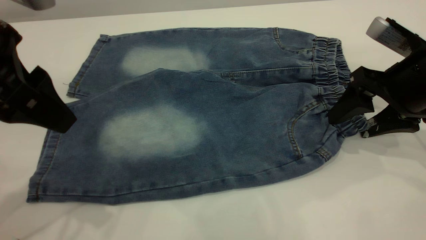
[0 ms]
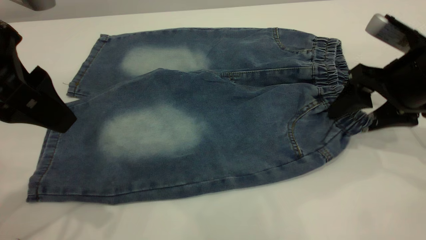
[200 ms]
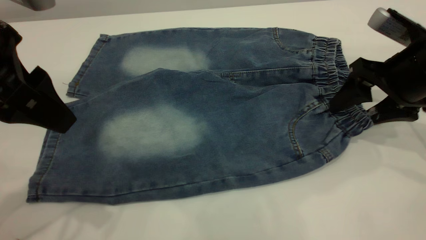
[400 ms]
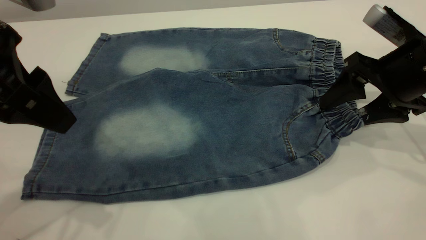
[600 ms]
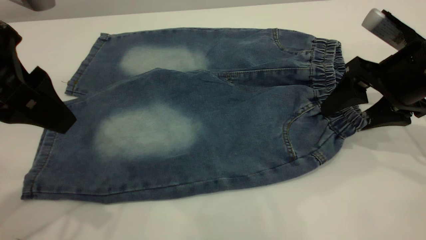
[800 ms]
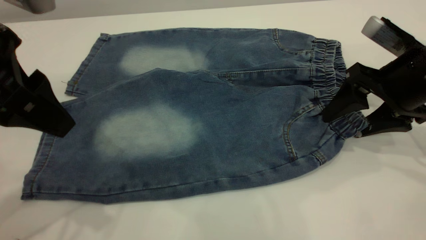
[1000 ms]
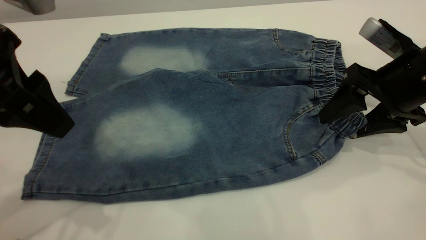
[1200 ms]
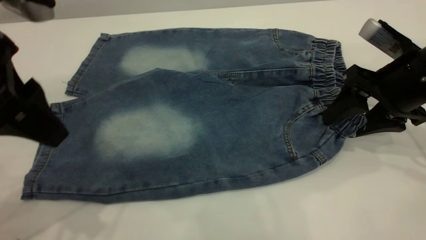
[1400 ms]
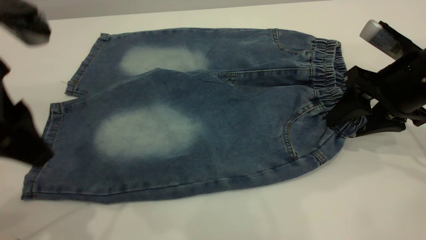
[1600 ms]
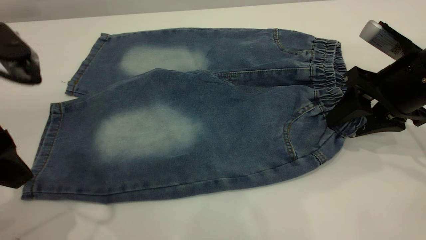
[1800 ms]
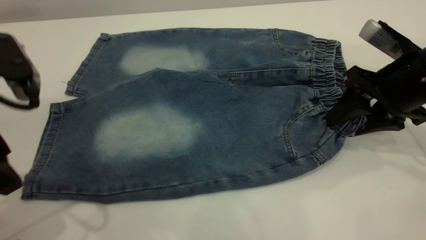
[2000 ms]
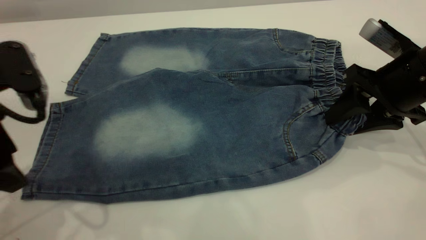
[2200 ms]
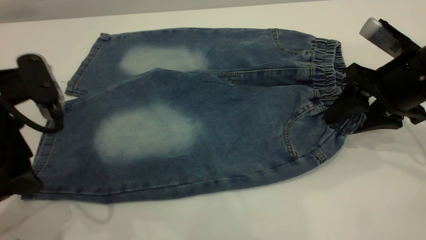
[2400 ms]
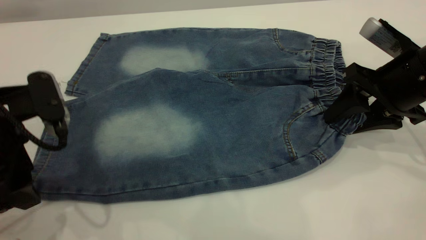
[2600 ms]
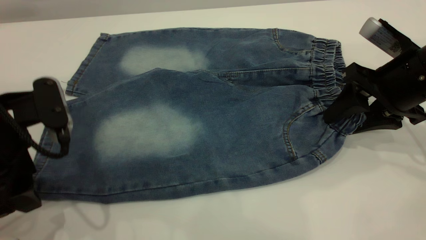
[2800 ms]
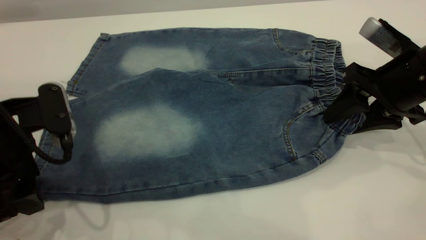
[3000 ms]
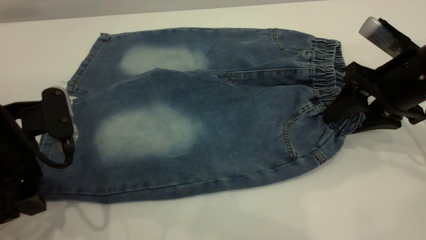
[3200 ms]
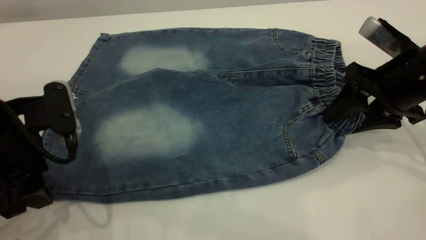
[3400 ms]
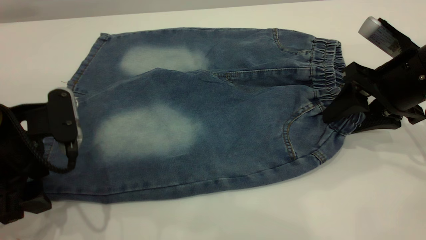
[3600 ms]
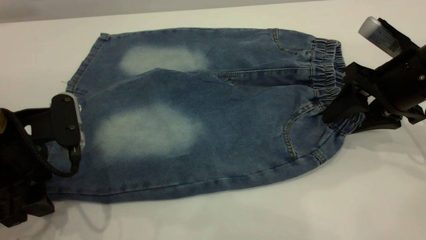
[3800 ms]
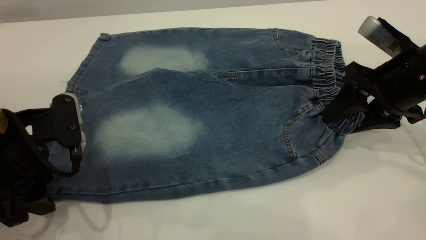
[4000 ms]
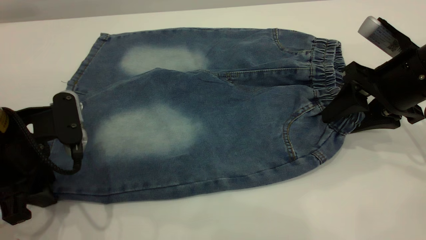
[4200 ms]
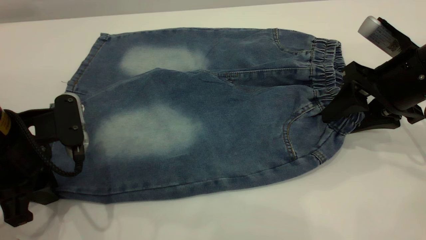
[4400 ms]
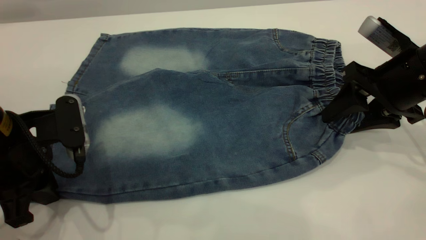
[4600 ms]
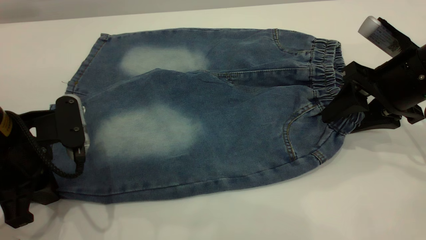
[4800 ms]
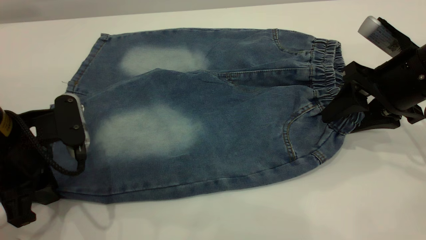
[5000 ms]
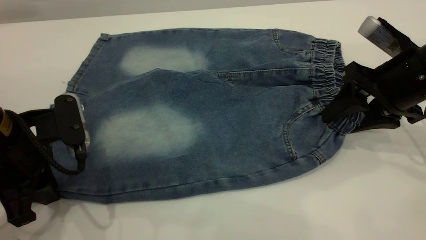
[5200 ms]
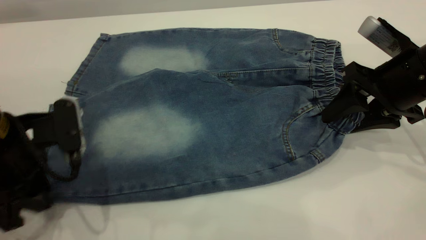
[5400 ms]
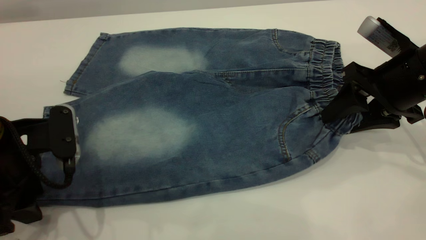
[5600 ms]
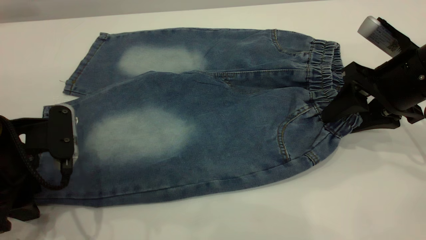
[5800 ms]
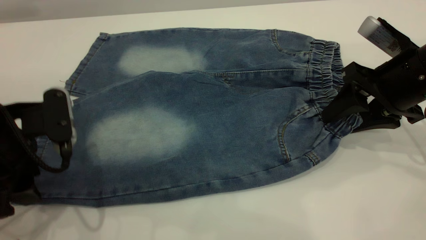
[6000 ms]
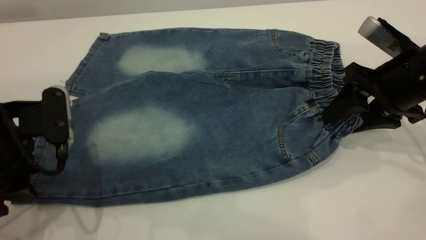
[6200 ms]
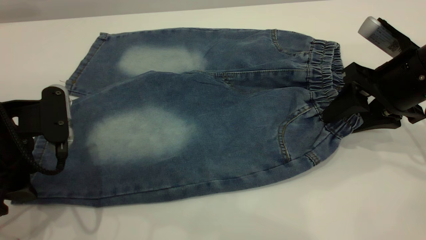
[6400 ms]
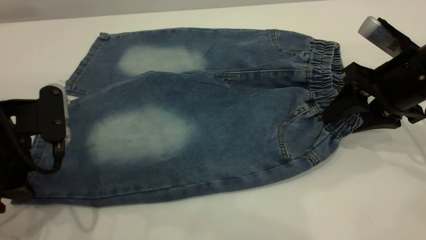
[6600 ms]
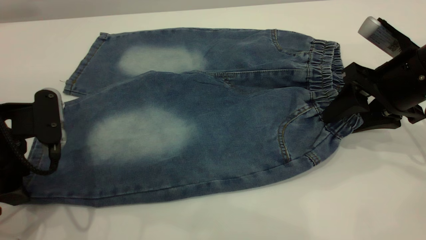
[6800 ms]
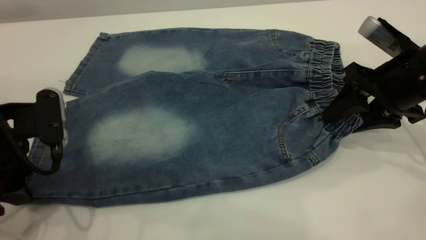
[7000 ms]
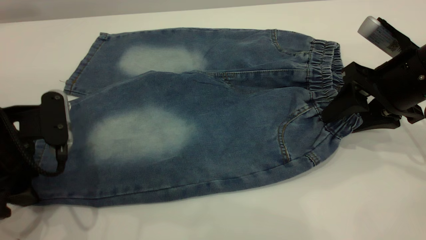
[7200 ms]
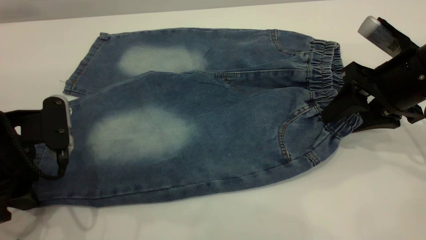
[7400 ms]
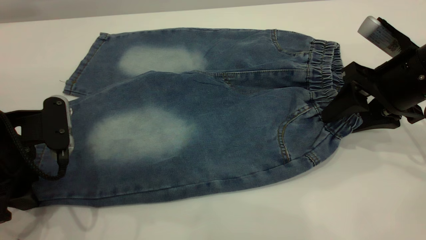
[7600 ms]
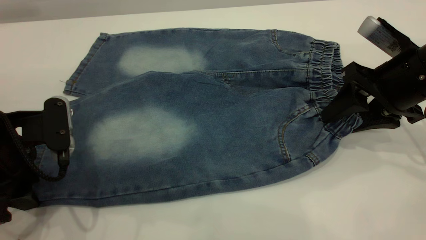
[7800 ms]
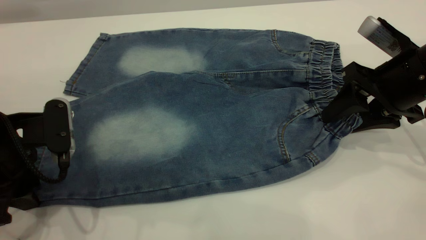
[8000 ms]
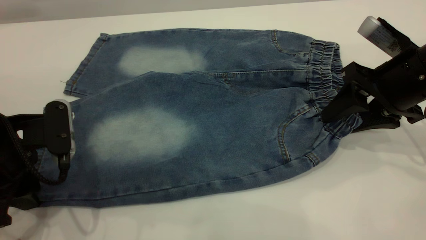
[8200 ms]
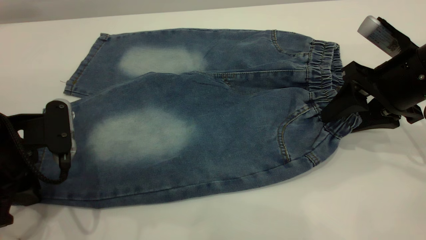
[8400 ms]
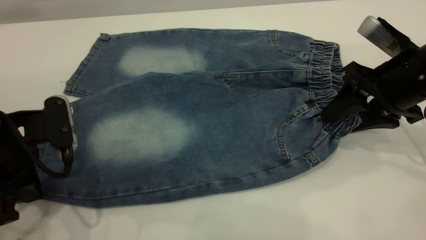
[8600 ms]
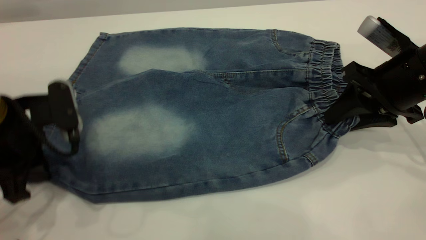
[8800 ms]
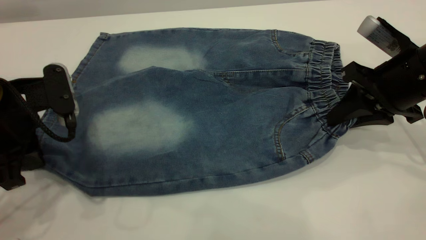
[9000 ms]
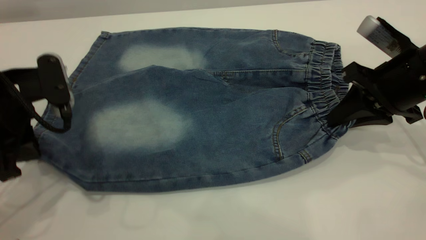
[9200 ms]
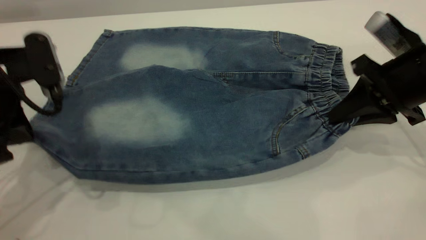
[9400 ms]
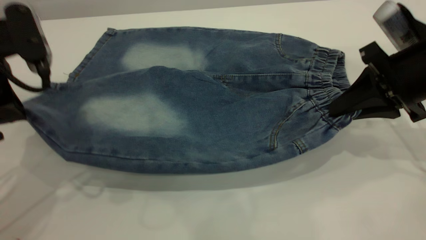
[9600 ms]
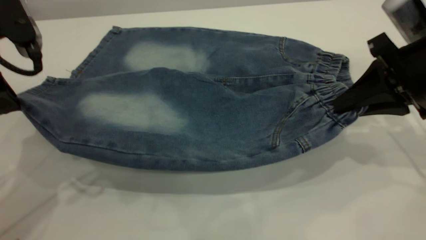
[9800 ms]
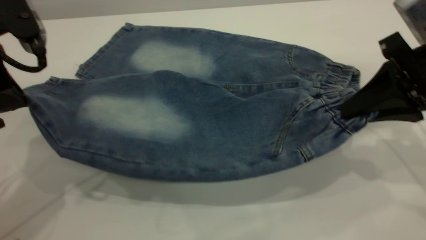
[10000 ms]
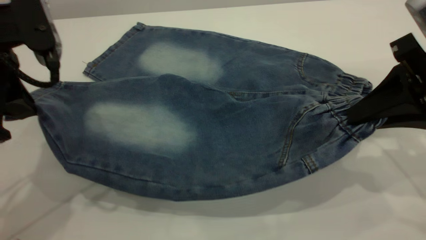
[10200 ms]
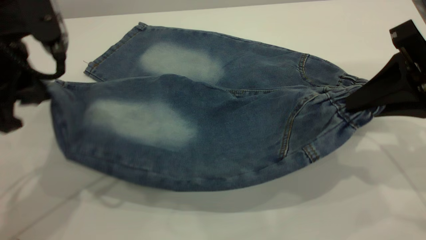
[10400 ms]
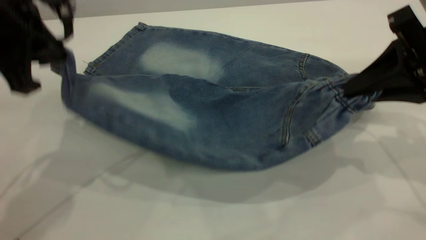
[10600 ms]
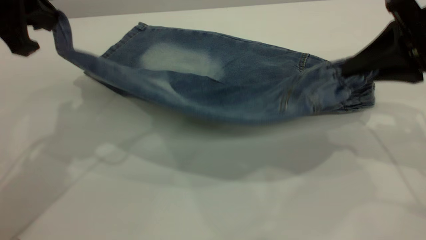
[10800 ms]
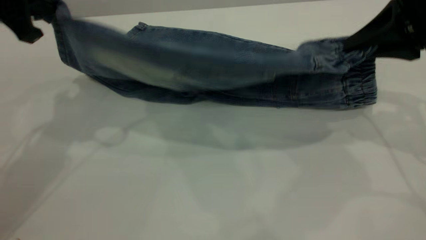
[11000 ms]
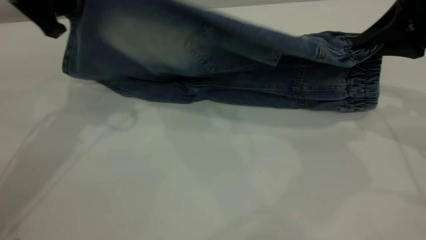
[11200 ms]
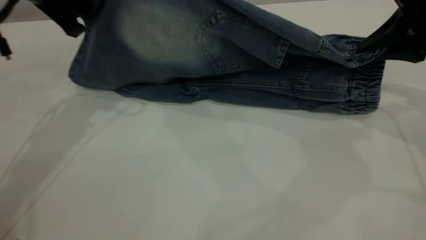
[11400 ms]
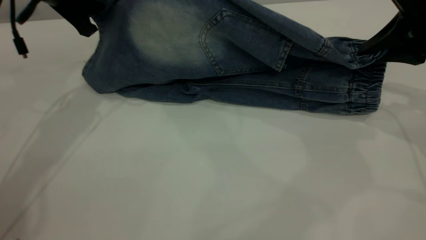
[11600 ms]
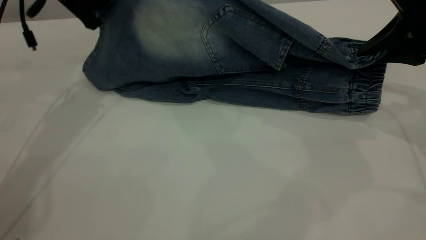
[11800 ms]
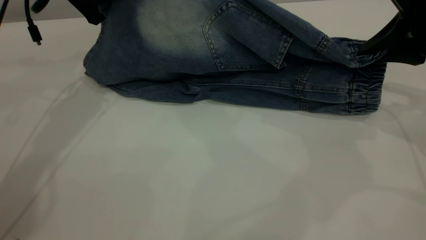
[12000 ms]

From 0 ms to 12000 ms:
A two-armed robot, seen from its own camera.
From 0 ms to 1600 ms: There are only small adjustments of the grippers.
From 1600 ms to 3000 ms: The left gripper shifts approximately 10 cm downward.
From 3000 ms to 4400 ms: The left gripper closes its fingers.
From 4400 ms to 6000 ms: The left gripper opens up.
From 6000 ms to 7600 ms: The grippers make only small movements.
From 7600 ms to 9000 ms: The right gripper closes its fingers. The left gripper closes its fingers.
From 9000 ms to 10400 ms: The left gripper moves upward, roughly 10 cm; the right gripper is displaced upward and backward by approximately 10 cm.
From 10400 ms to 12000 ms: The left gripper shifts approximately 20 cm forward. Meanwhile the right gripper travels forward by roughly 5 cm.

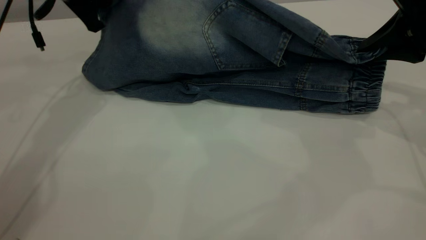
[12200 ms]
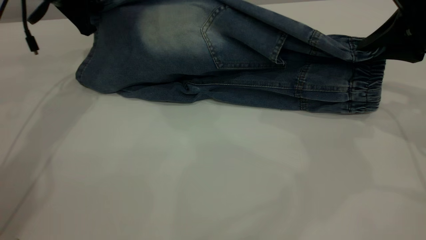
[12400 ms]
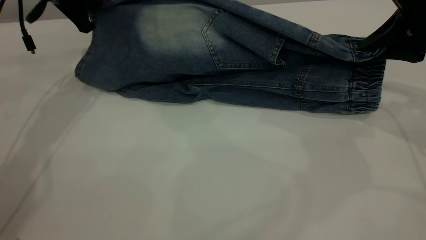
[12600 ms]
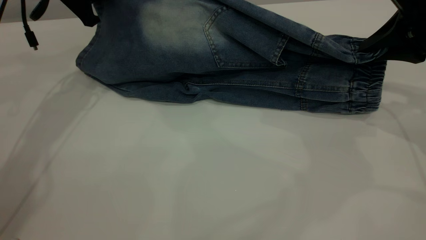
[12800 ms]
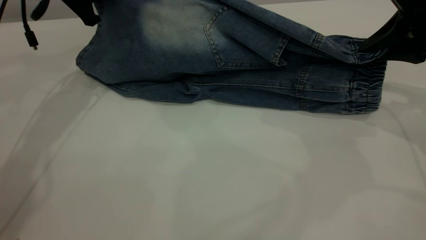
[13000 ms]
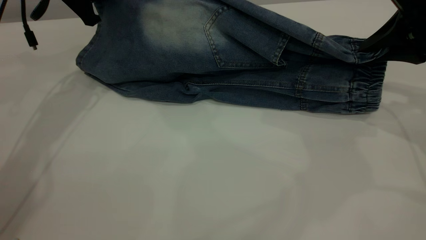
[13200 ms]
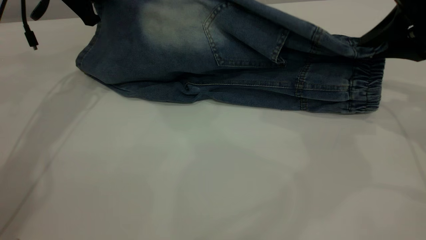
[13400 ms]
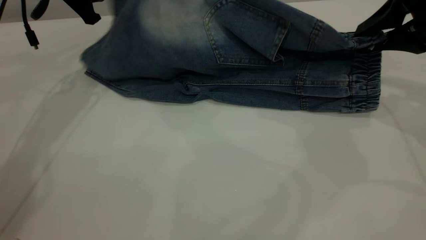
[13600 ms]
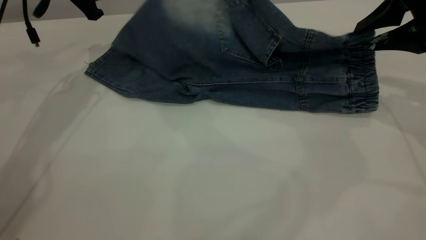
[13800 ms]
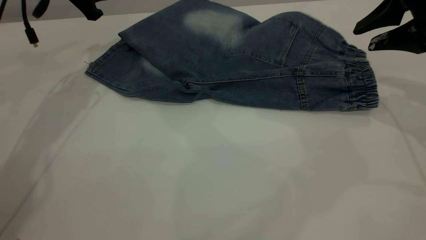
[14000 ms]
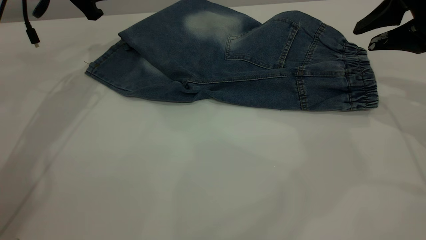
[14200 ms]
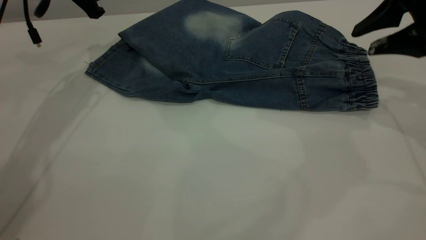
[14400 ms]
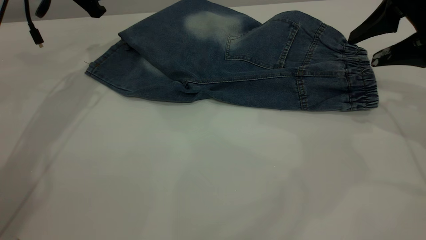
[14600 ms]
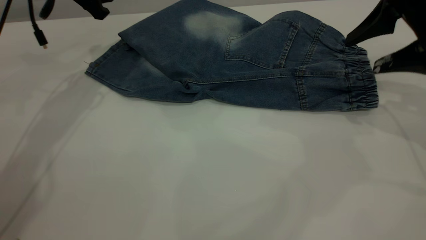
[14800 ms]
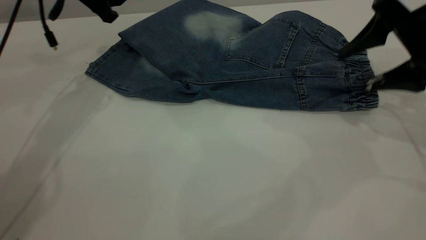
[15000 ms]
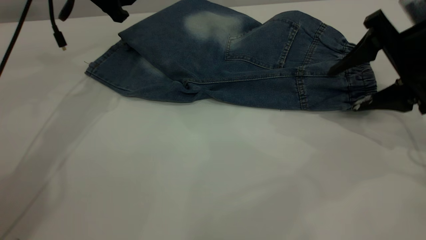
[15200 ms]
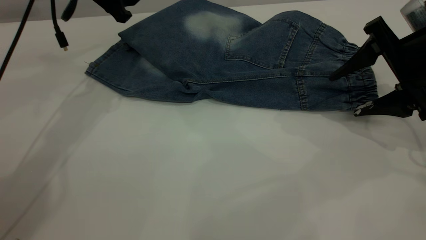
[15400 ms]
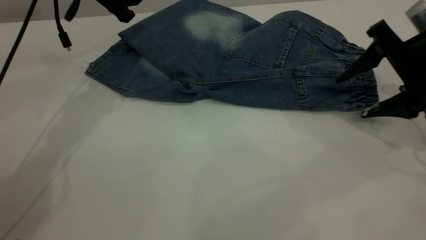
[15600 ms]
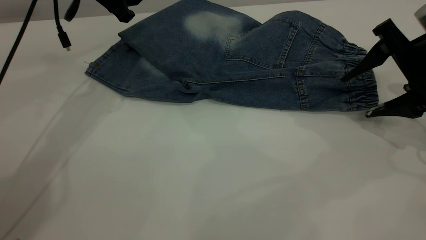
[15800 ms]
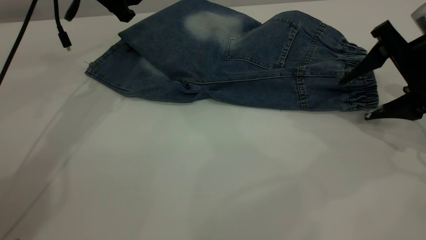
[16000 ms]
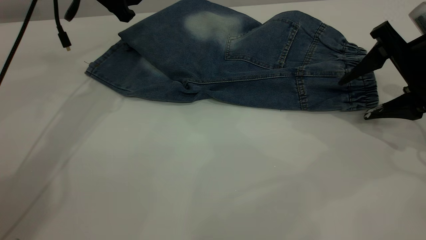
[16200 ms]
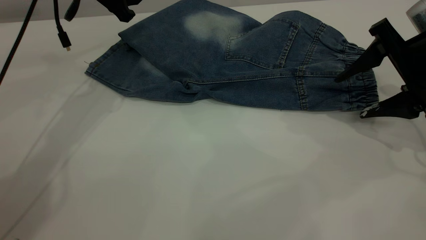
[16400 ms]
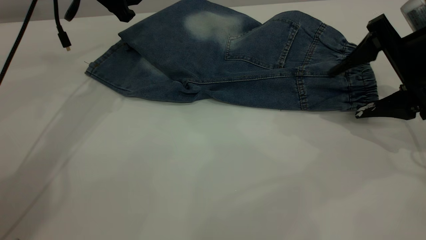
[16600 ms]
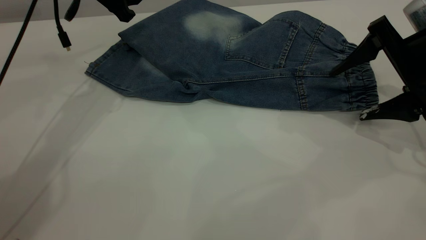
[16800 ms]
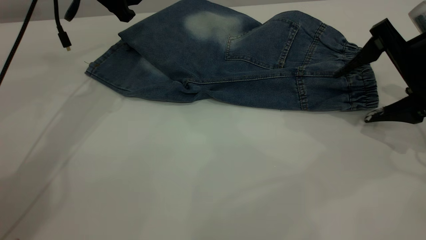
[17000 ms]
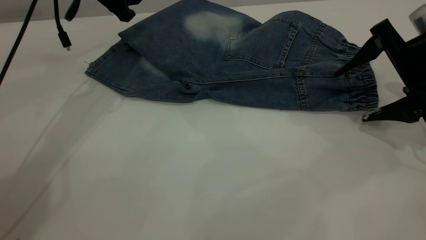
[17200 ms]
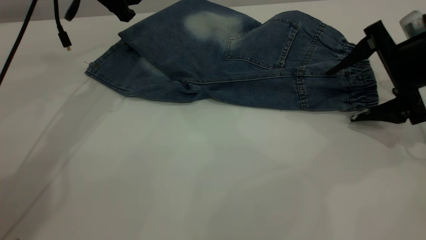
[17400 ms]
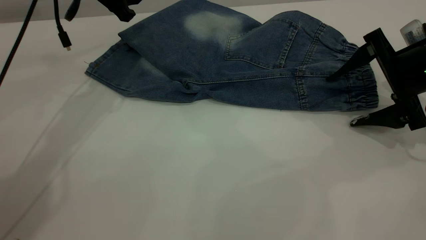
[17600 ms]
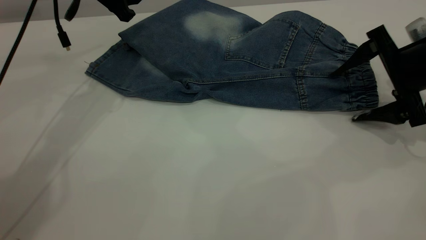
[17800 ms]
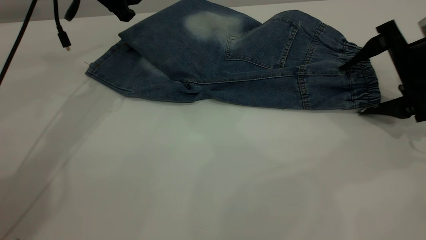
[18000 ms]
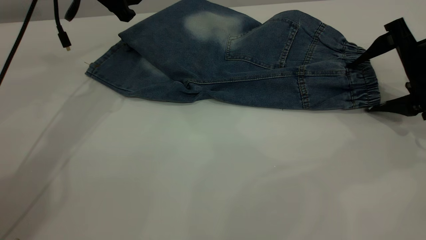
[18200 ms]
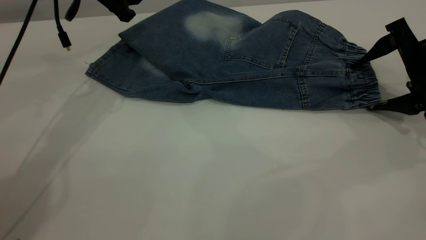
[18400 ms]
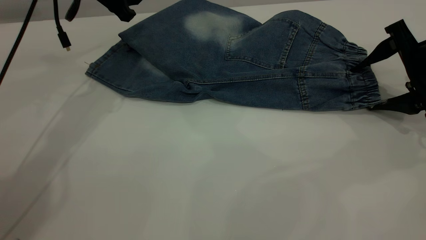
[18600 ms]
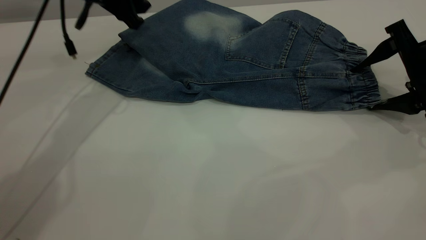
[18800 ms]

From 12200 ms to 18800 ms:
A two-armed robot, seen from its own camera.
From 12200 ms to 13800 ms: The left gripper opens its fingers.
From 13800 ms to 15400 ms: The right gripper travels downward by roughly 5 cm, and opens up.
From 15400 ms to 18800 ms: There are only small adjustments of the grippers.
